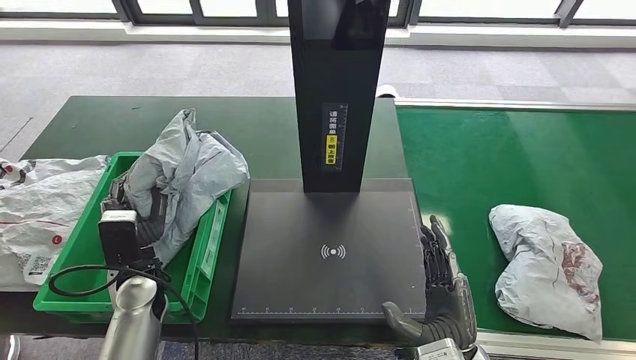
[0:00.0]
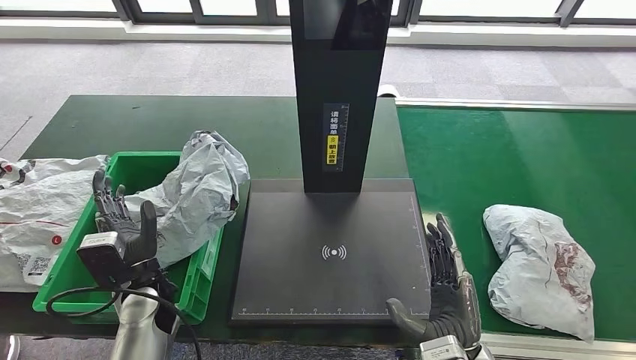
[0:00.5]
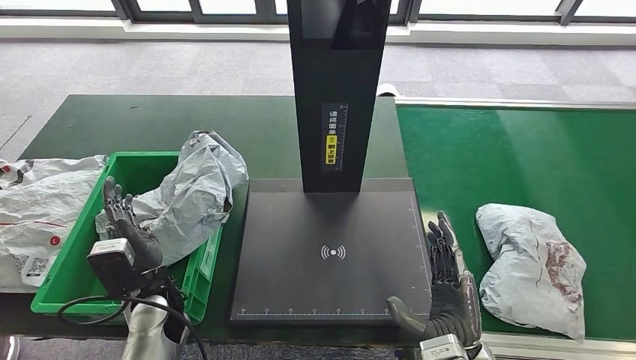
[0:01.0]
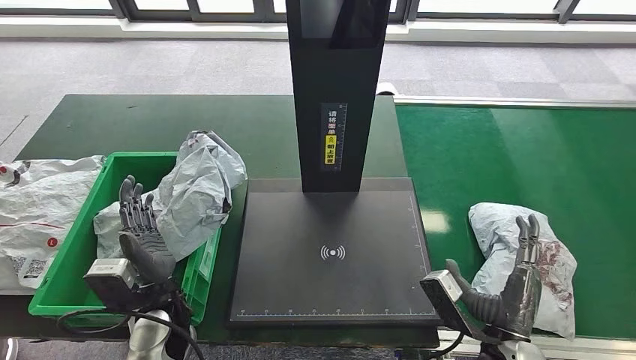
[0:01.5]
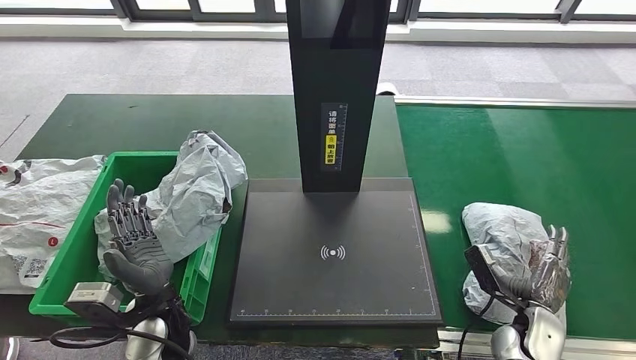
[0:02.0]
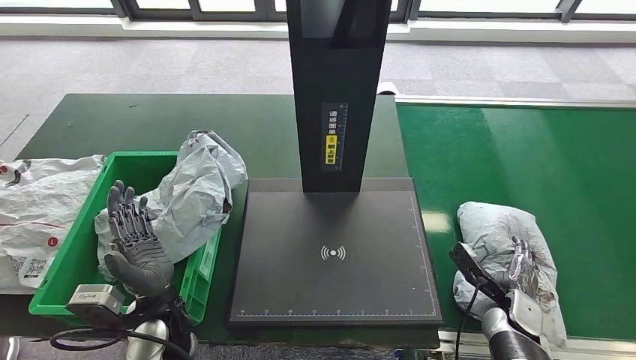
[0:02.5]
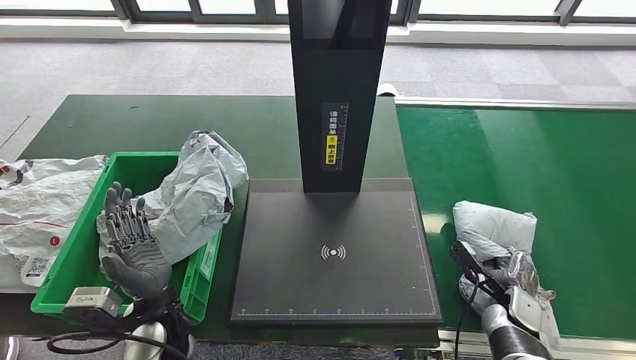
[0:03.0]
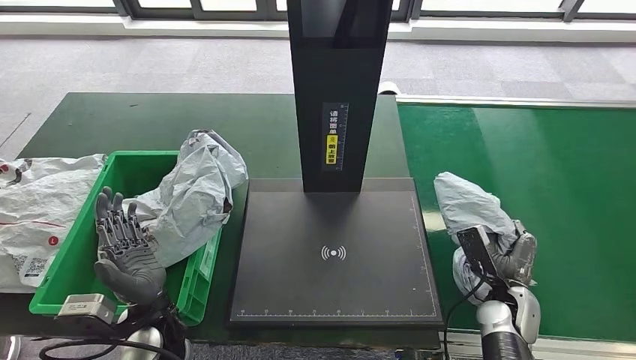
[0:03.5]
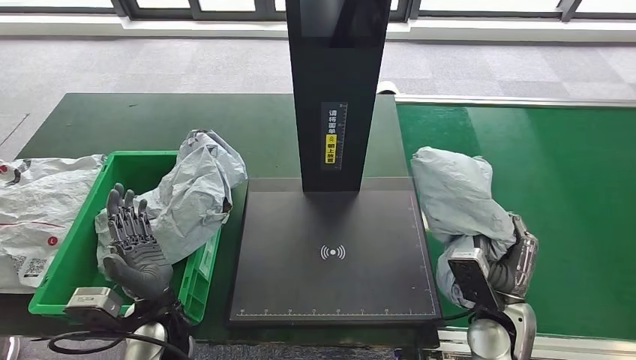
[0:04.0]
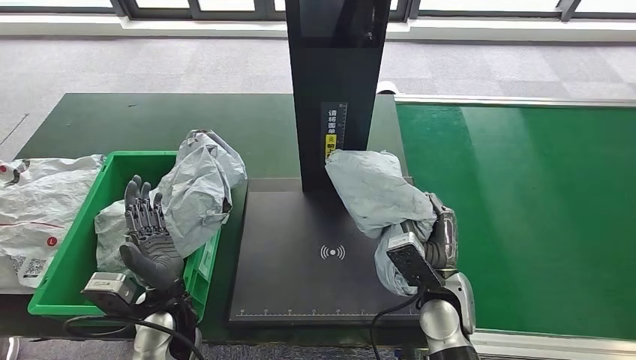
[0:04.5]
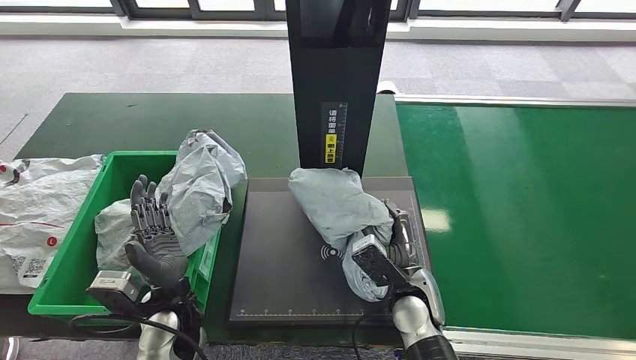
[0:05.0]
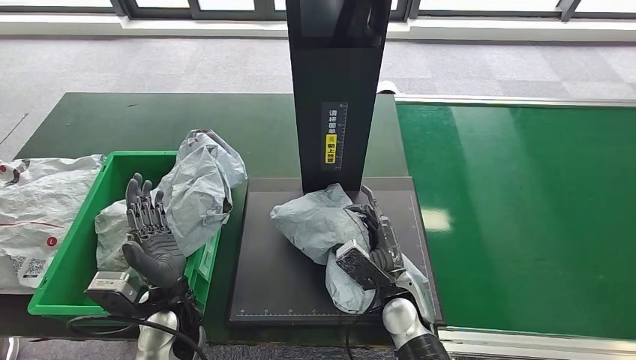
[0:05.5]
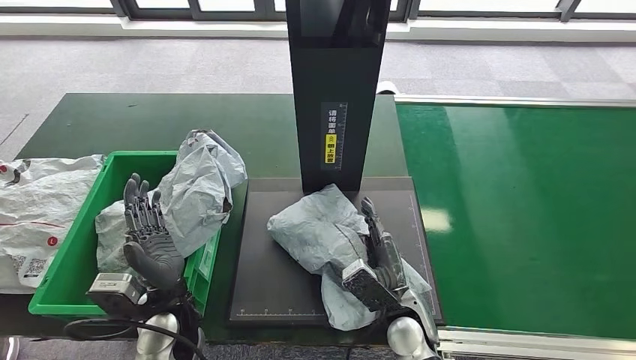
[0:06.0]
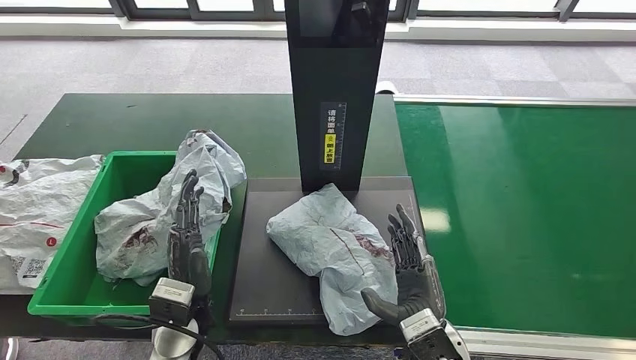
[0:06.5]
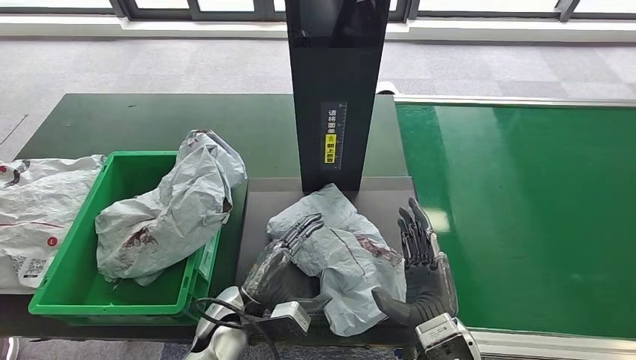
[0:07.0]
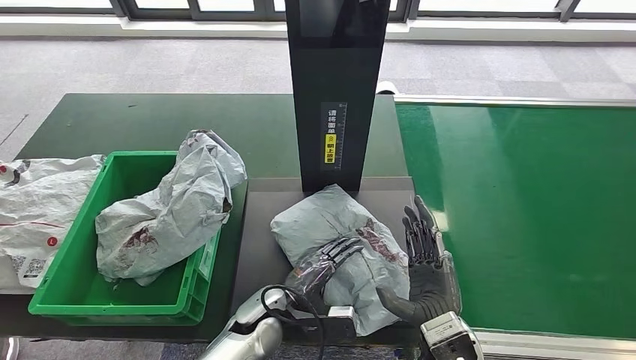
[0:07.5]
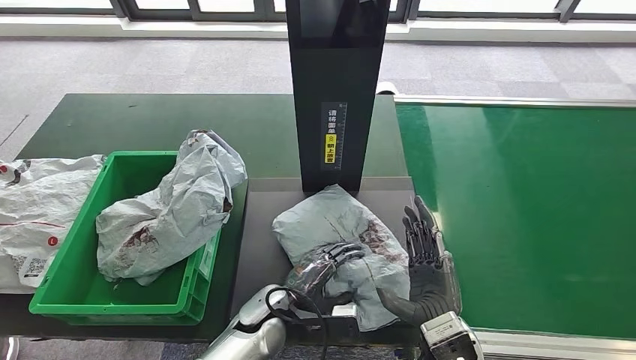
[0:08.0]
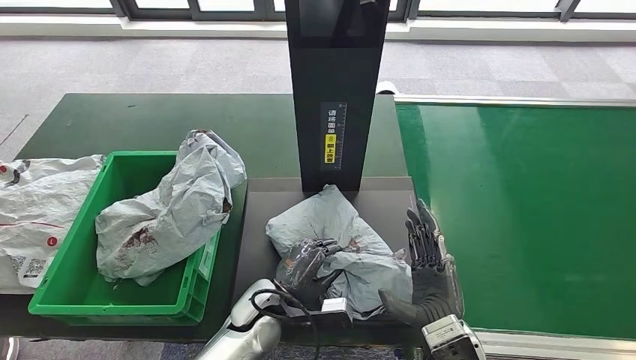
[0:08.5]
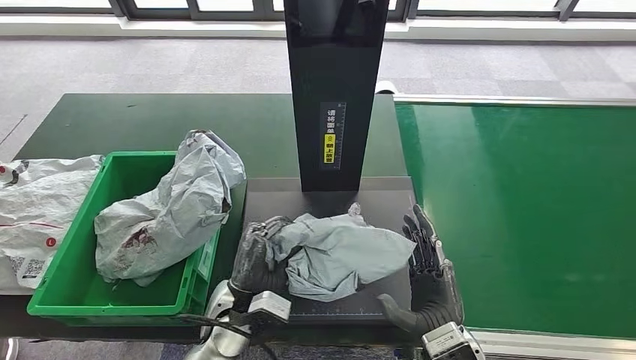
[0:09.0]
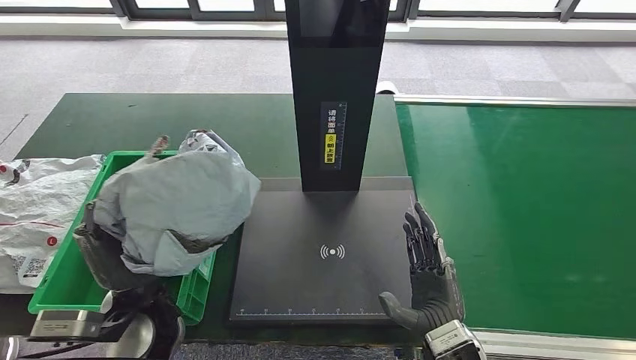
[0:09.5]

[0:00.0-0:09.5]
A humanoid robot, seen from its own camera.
Step, 0:00.0 to 0:01.5: Place the parcel into the delivery box.
Step, 0:02.5 to 0:04.0: Pick up the parcel from the conveyor belt.
Step, 0:05.0 to 0:07.0: Place the parcel onto the inbound machine.
Step, 0:07.5 to 0:09.0: Pick up the parcel from the inbound machine.
0:02.0 to 0:04.0: The right hand travels to the left and upward by approximately 10 cm.
0:04.0 to 0:05.5: The right hand heads to the left, covering about 15 cm.
0:05.5 to 0:07.5: The right hand travels backward and to the right by about 10 cm. The left hand is displaced to the right and downward by some 15 cm.
0:07.5 to 0:09.5: The left hand is displaced to the left and upward by approximately 20 cm.

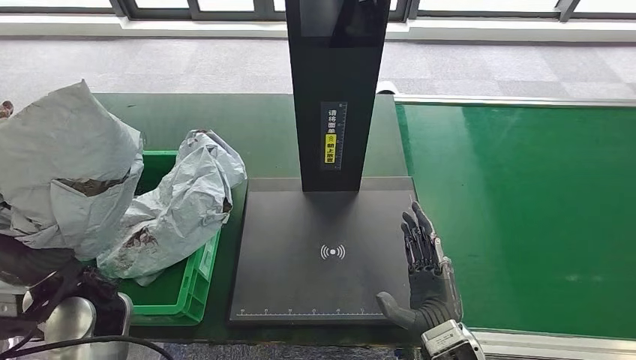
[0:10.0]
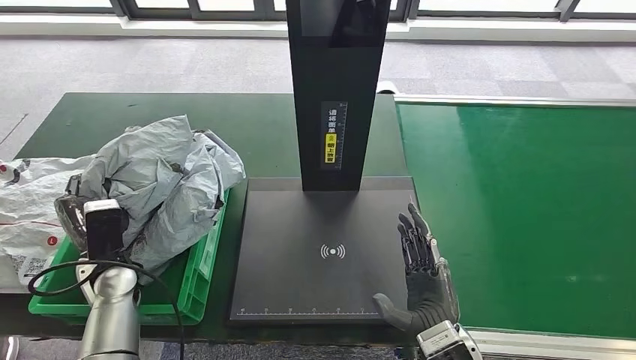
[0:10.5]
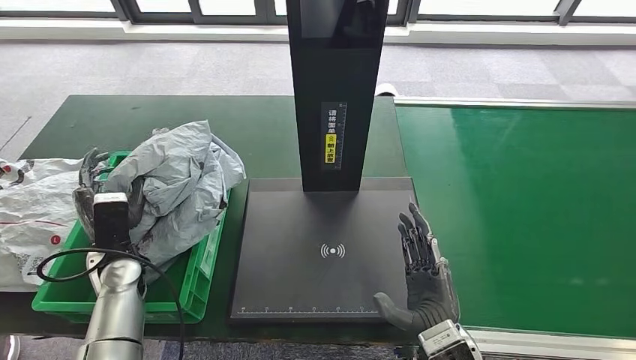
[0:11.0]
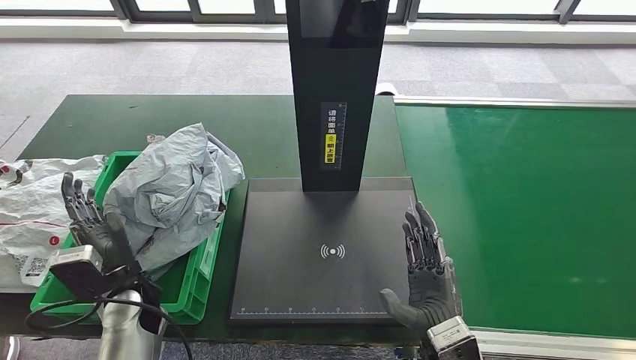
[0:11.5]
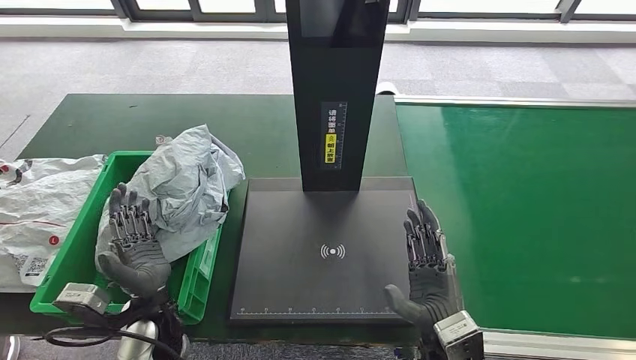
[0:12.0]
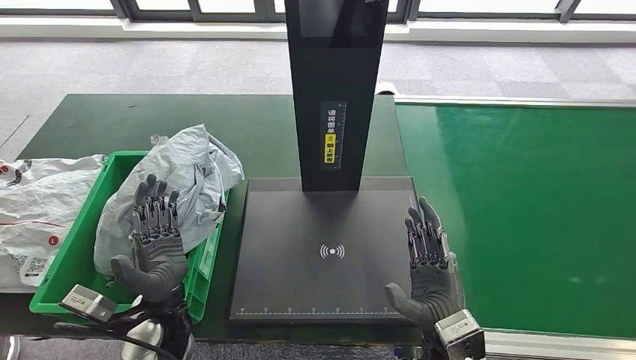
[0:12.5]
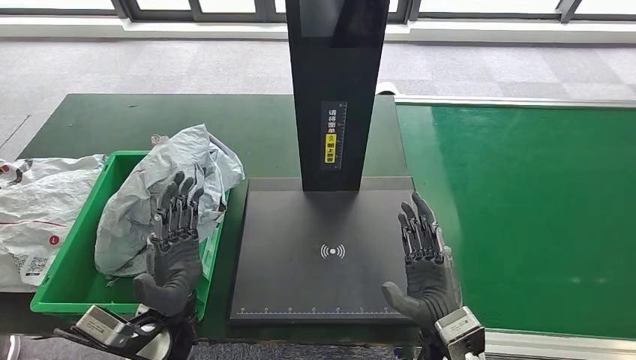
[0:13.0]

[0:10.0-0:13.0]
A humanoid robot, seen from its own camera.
Step, 0:10.0 to 0:13.0: Place the parcel into the delivery box.
0:11.5 to 0:13.0: The left hand is displaced to the right by roughly 10 cm.

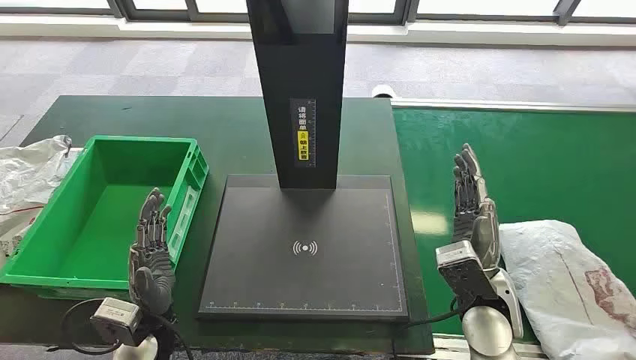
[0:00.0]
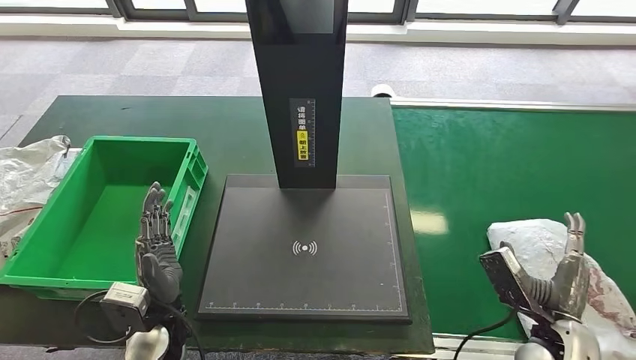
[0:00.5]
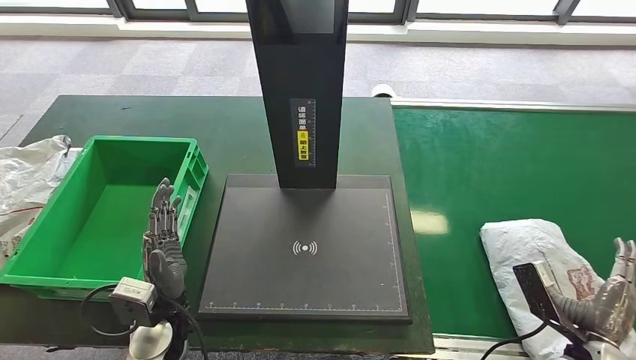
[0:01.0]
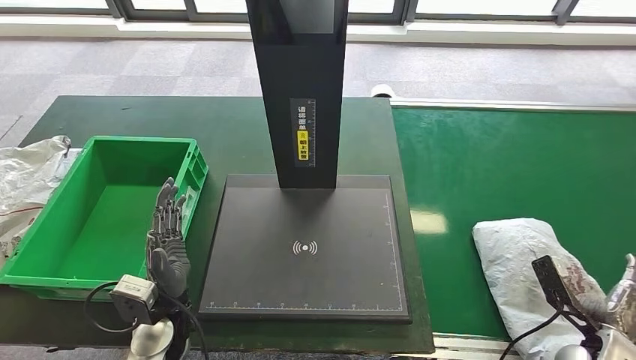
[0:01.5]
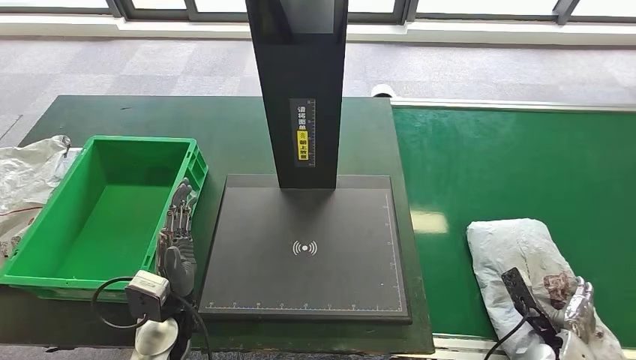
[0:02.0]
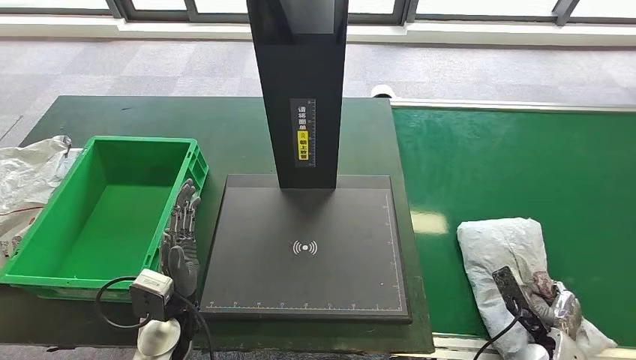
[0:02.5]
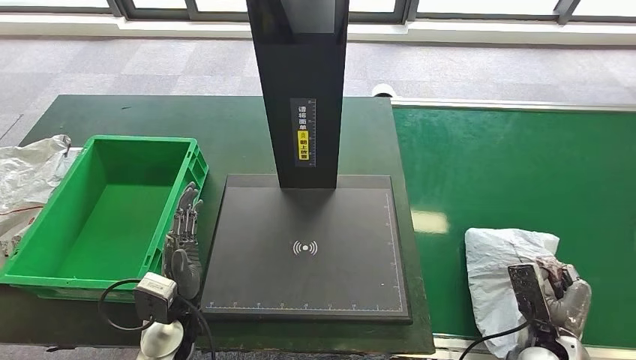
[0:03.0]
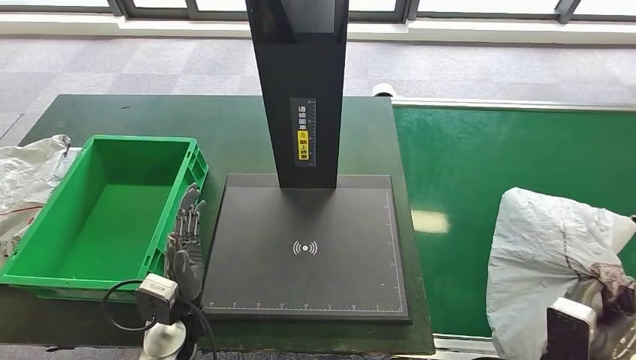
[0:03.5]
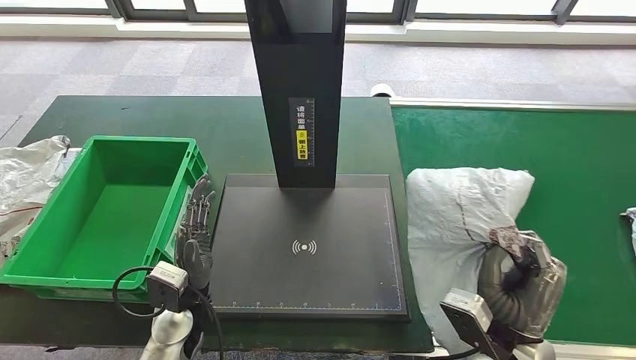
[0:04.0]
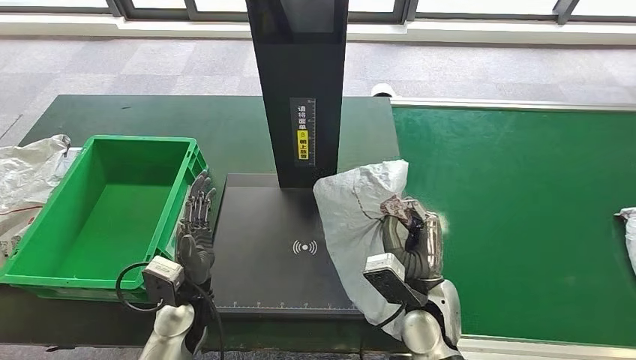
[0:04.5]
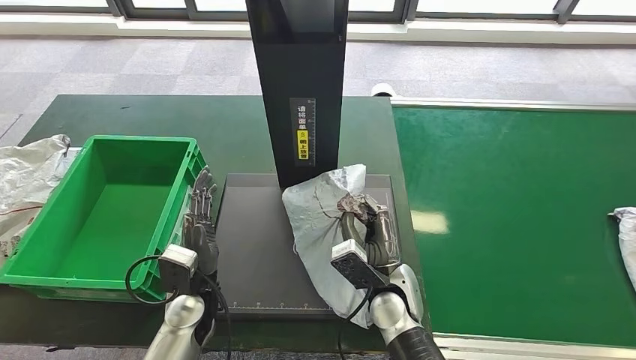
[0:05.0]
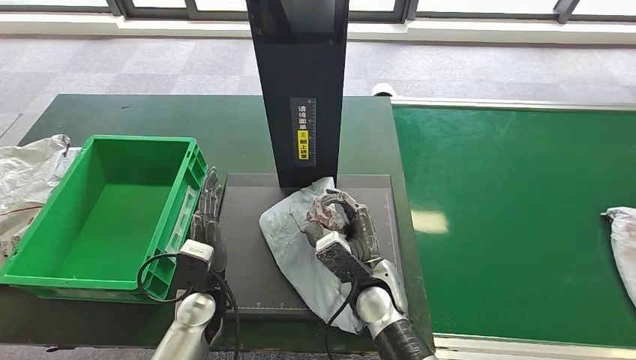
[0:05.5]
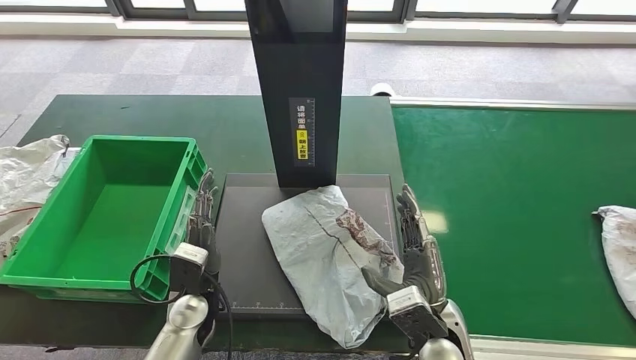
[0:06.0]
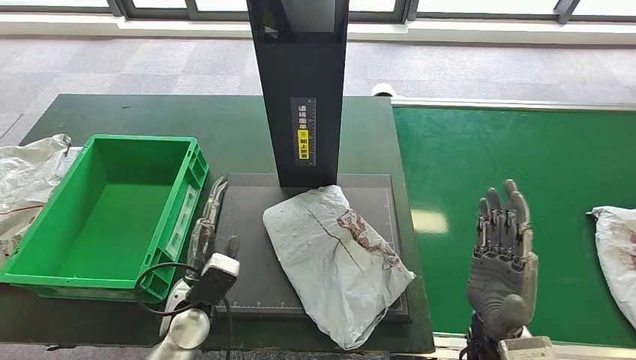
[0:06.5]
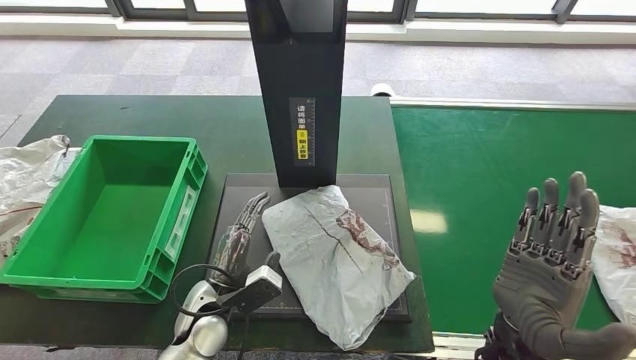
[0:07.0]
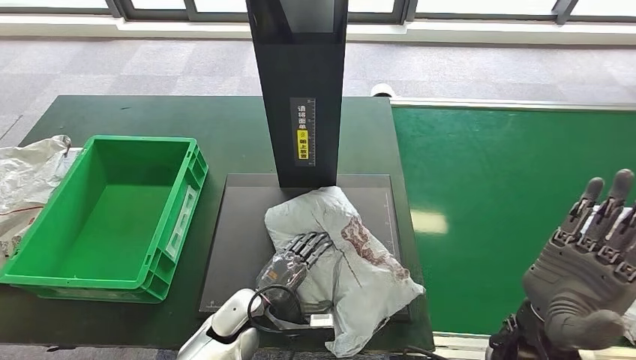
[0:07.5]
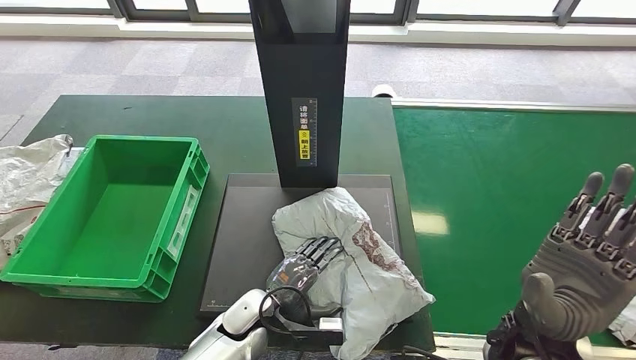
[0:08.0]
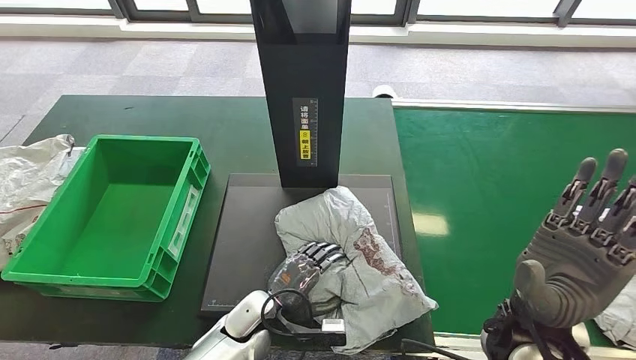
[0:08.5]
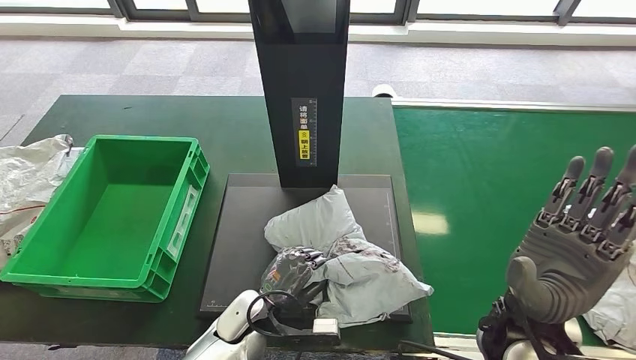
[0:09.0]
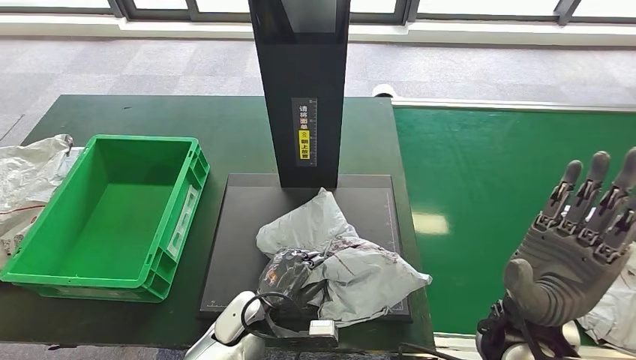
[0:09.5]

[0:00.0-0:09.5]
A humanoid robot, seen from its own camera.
Step, 0:00.0 to 0:04.0: Take the parcel off the conveyor belt.
Step, 0:04.5 to 0:06.5: Place the parcel onto the inbound machine.
0:02.0 to 0:04.0: The right hand heads to the left and upward, covering approximately 20 cm.
0:05.5 to 0:07.5: The left hand heads to the right, covering some 5 cm. The right hand is displaced to the right, upward and backward by approximately 20 cm.
0:07.5 to 0:09.5: There are only small adjustments of the hands.
